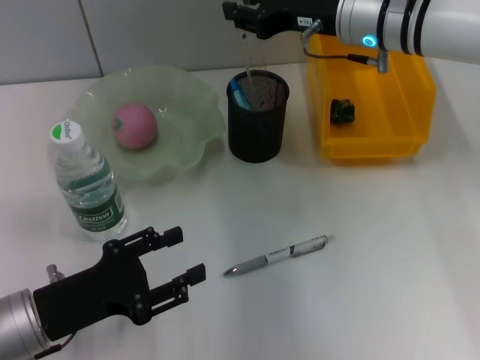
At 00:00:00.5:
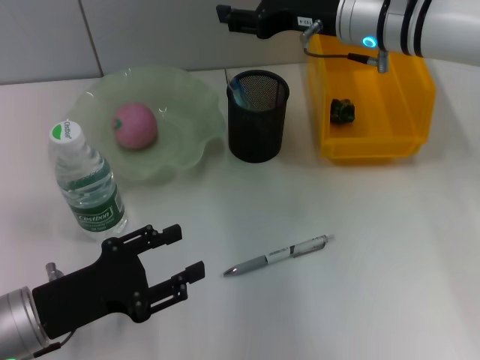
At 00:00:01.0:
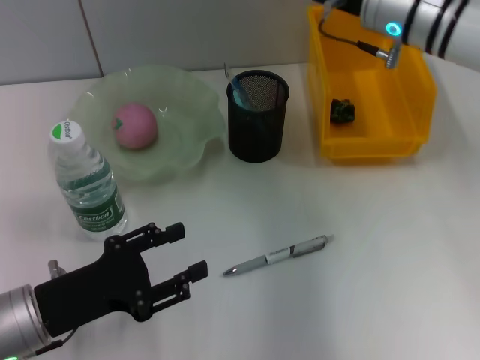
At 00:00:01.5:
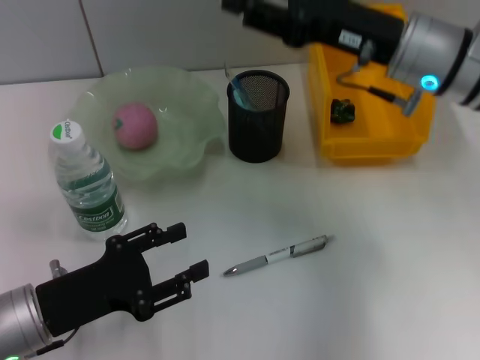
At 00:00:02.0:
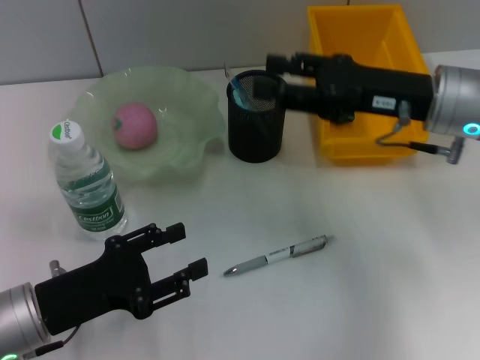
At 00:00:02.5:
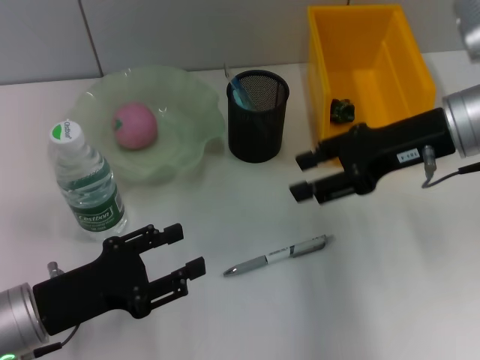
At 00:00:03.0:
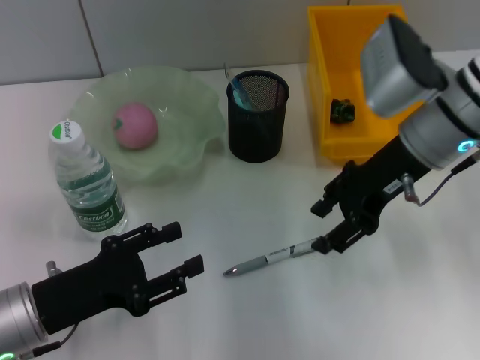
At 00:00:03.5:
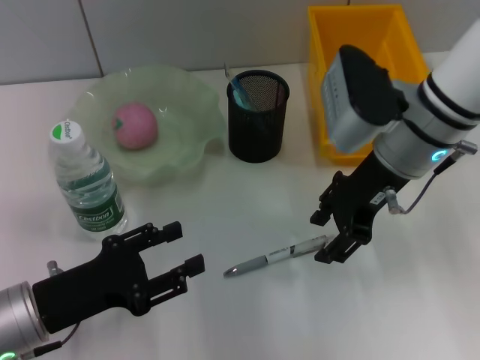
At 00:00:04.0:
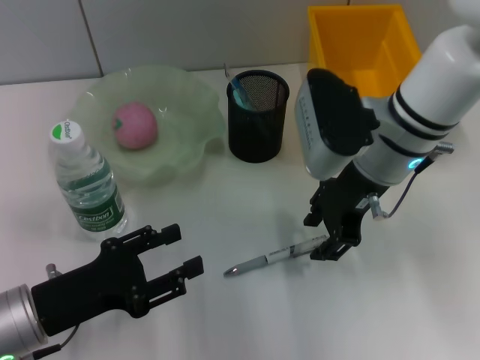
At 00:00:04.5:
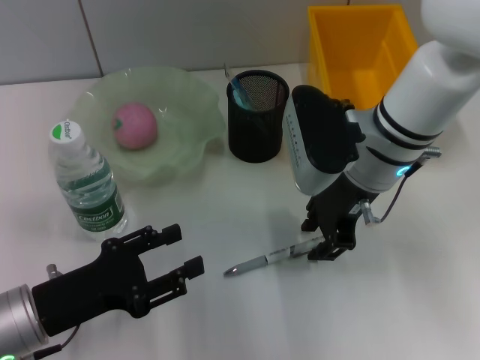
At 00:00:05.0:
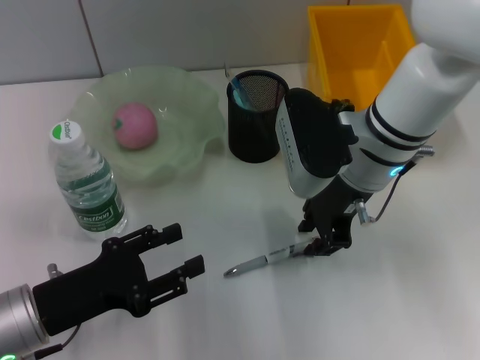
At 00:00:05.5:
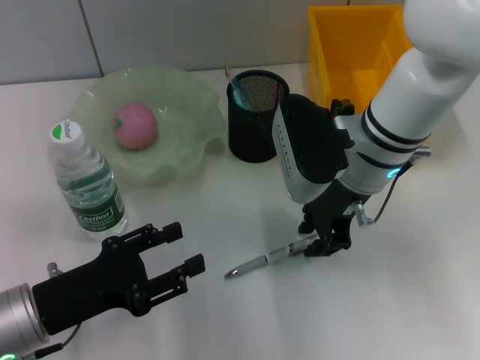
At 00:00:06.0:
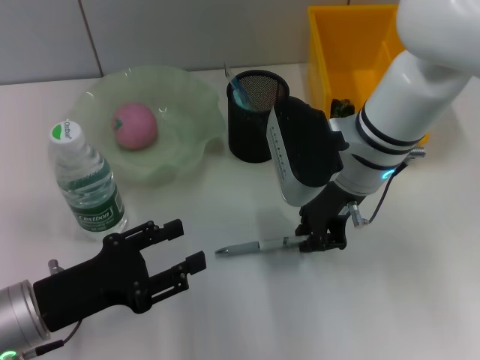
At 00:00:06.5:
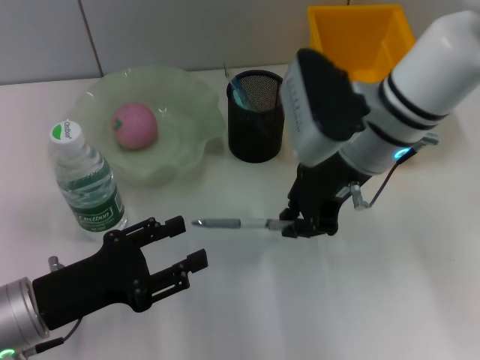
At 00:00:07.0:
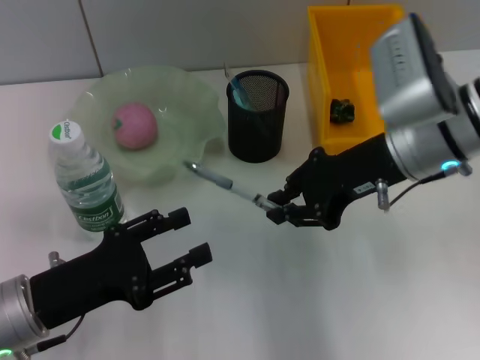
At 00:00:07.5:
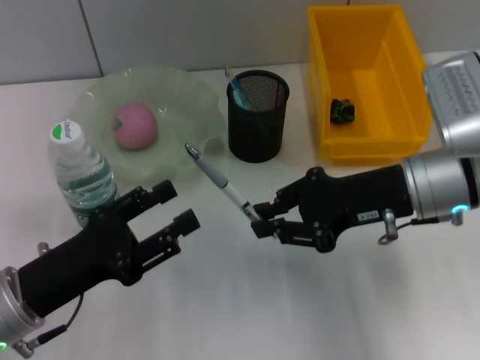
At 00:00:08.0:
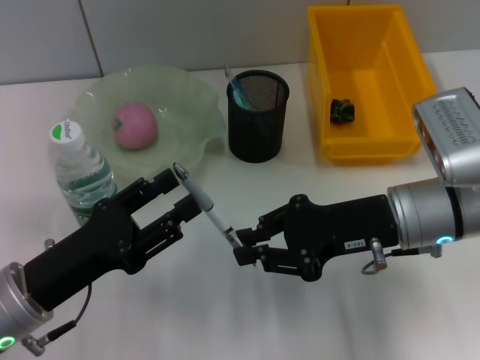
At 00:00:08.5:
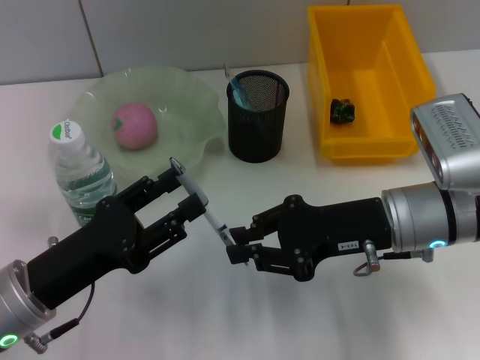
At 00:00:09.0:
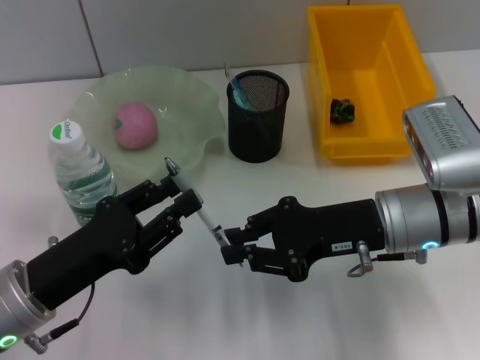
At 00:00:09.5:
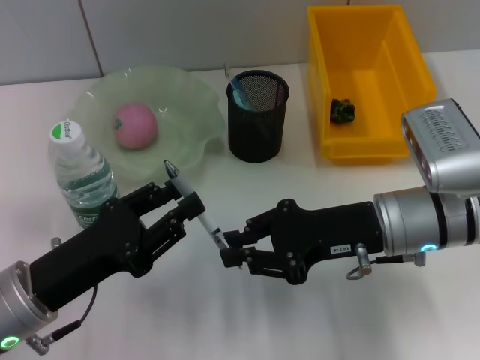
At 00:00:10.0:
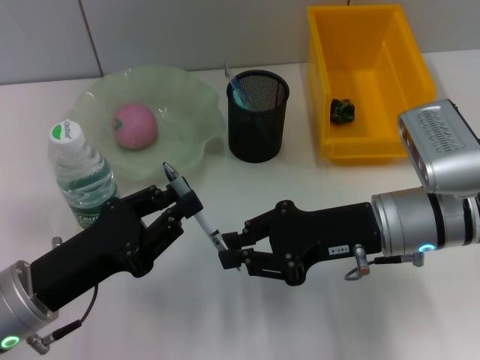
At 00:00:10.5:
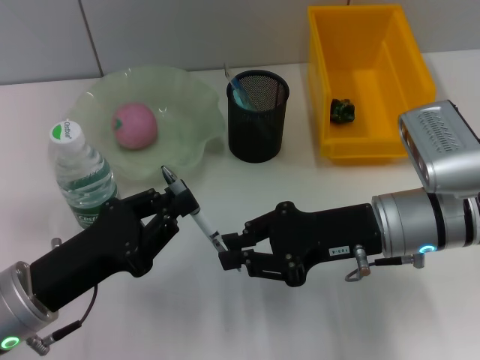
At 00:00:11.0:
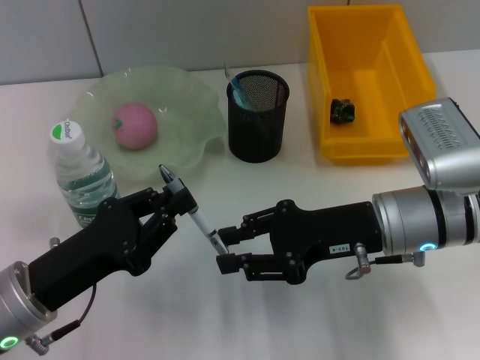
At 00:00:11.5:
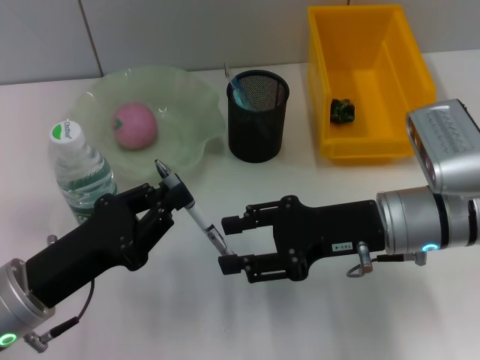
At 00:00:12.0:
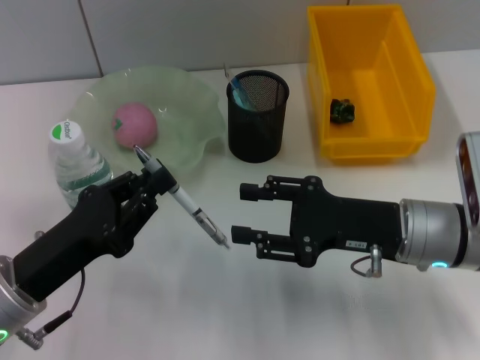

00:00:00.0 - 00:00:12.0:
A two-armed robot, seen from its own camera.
Step, 00:00:01.0 - 00:00:05.5: Grab the gray spring-action pen with the right hand.
Step, 00:00:06.0 - 00:00:11.0: Pass the gray spring-action pen from the right hand to the left hand.
00:00:00.0 - 00:00:02.0: The right gripper heads backward and to the right, covering roughly 10 cm, and opens up.
00:00:02.0 - 00:00:04.0: The right gripper travels to the left by about 10 cm.
00:00:04.0 - 00:00:06.0: The right gripper closes up.
00:00:06.0 - 00:00:08.0: The right gripper travels to the right and backward by about 10 cm.
00:00:08.0 - 00:00:10.0: The left gripper closes its fingers.
00:00:10.0 - 00:00:12.0: The right gripper opens.

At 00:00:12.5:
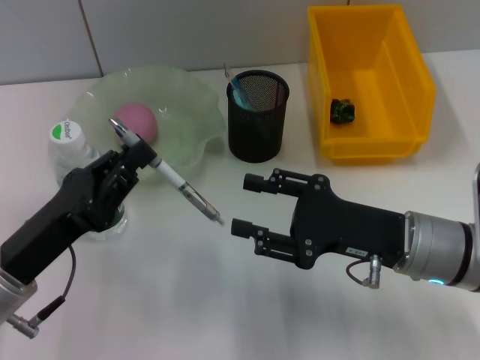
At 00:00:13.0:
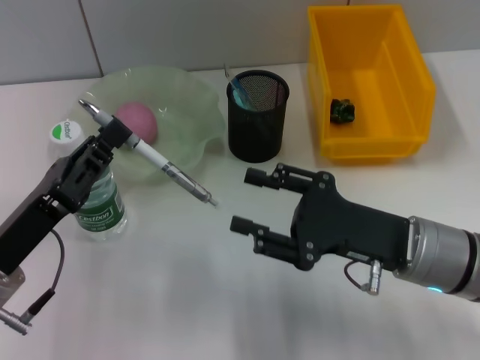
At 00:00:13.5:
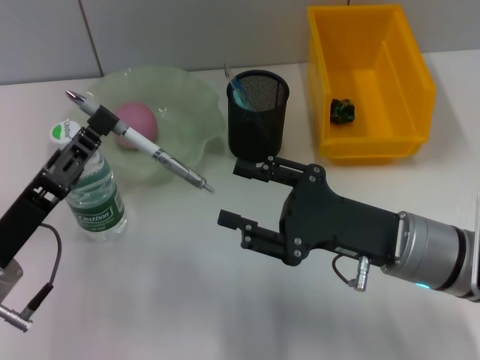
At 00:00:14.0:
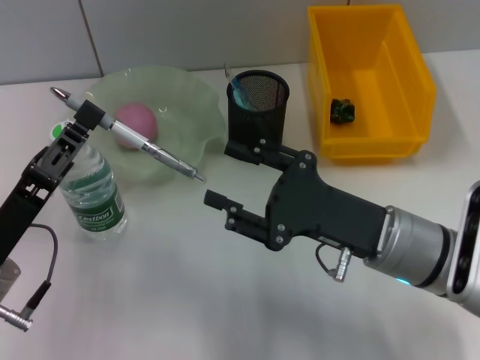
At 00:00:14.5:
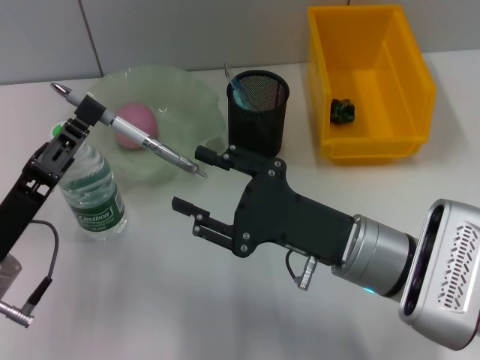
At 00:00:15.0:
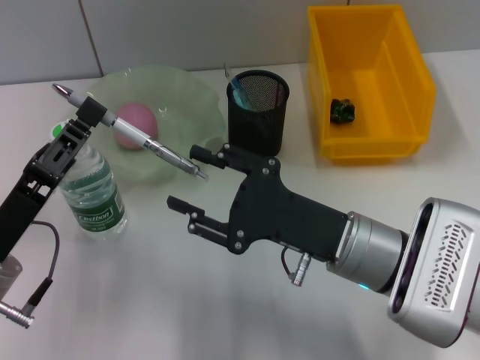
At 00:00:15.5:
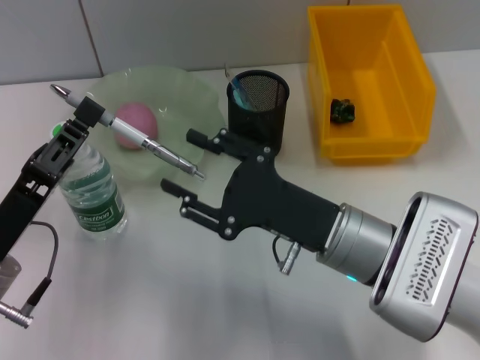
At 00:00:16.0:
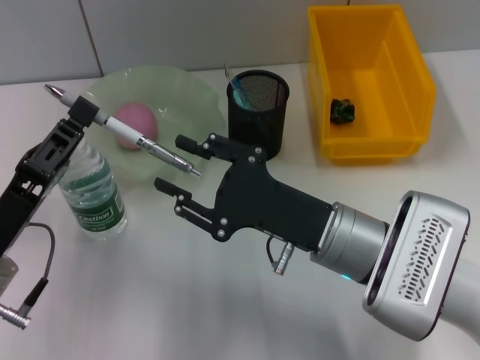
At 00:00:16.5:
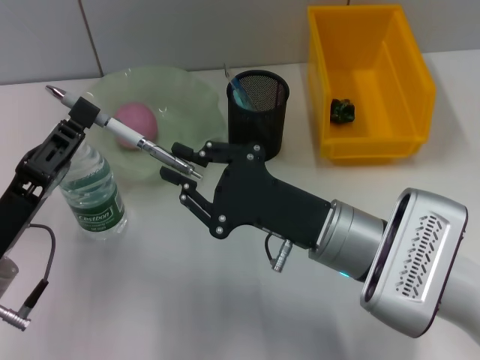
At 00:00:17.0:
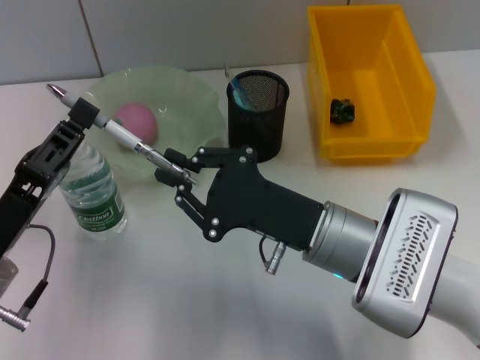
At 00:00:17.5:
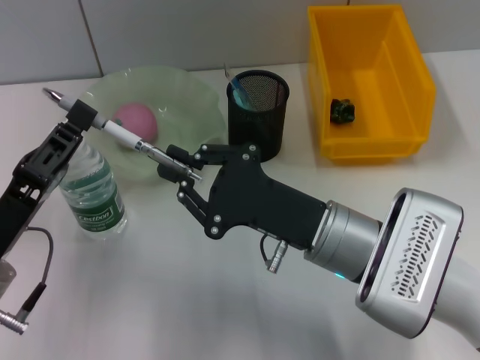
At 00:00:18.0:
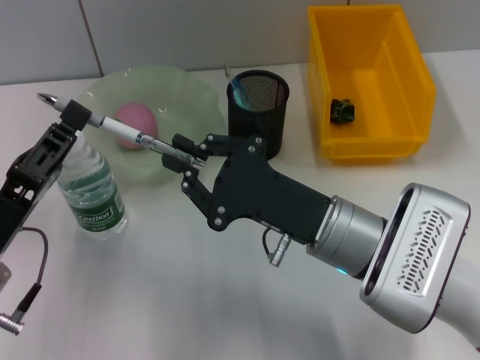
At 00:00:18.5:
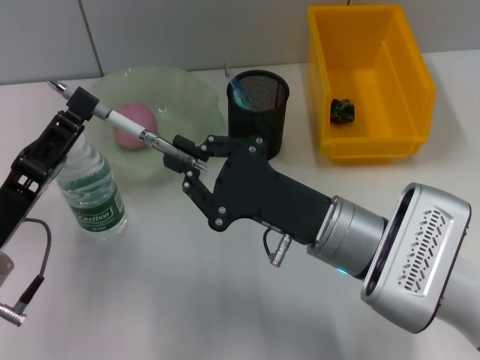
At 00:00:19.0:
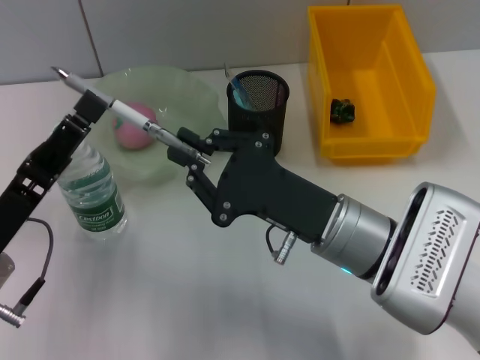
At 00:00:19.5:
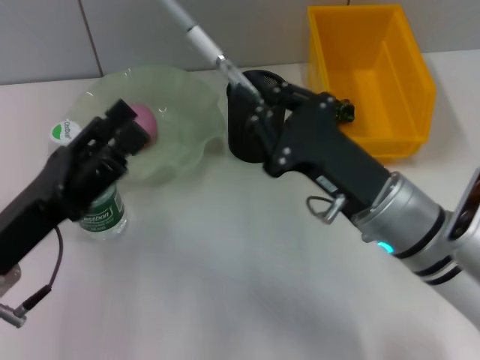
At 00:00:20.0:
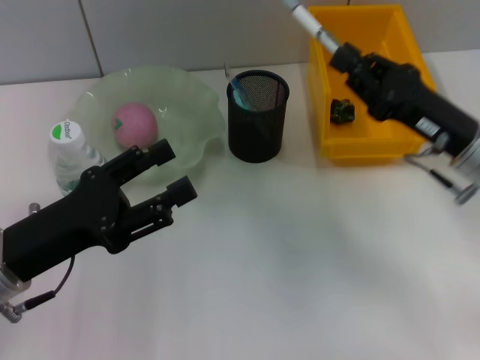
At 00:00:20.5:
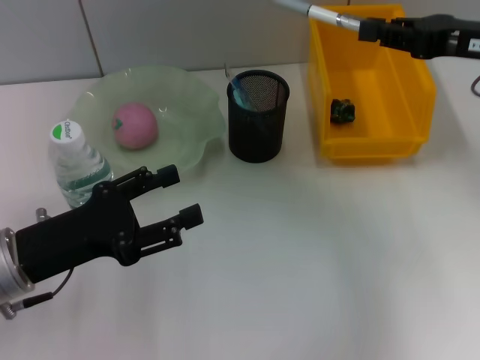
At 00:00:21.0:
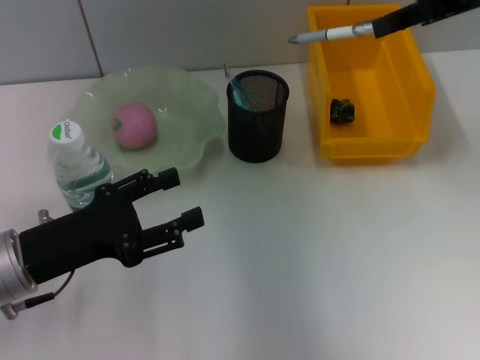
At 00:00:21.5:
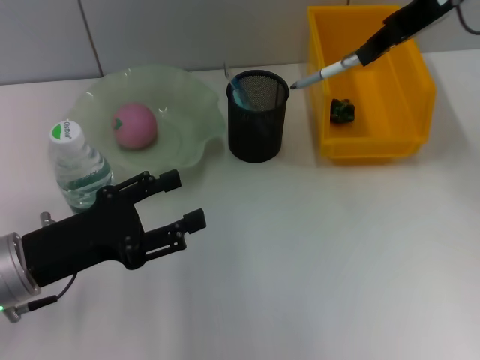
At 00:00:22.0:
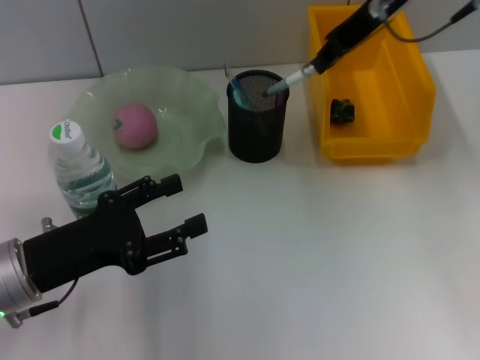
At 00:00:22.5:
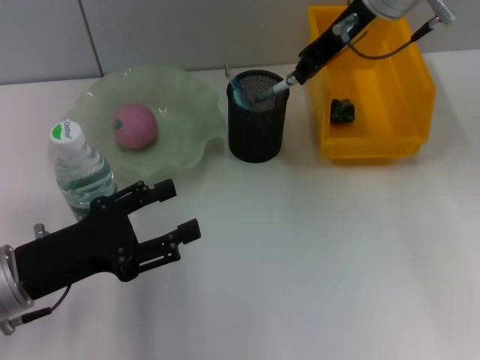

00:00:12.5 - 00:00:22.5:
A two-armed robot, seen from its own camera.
Step, 00:00:12.5 - 00:00:18.5: Pass the gray spring-action pen from the left hand to the right hand.
00:00:12.5 - 00:00:14.5: The right gripper is displaced to the left by approximately 5 cm.
00:00:14.5 - 00:00:16.5: The right gripper closes up.
00:00:16.5 - 00:00:18.5: Neither gripper changes place.
00:00:18.5 - 00:00:20.5: The left gripper opens. Meanwhile the right gripper moves to the right, upward and forward, about 25 cm.
00:00:20.5 - 00:00:22.5: The right gripper is displaced to the left and forward by approximately 15 cm.

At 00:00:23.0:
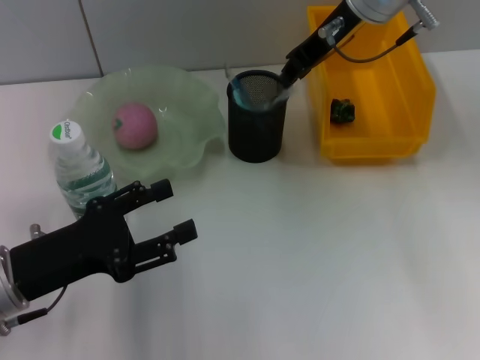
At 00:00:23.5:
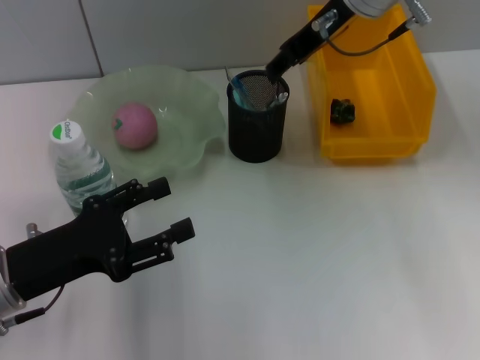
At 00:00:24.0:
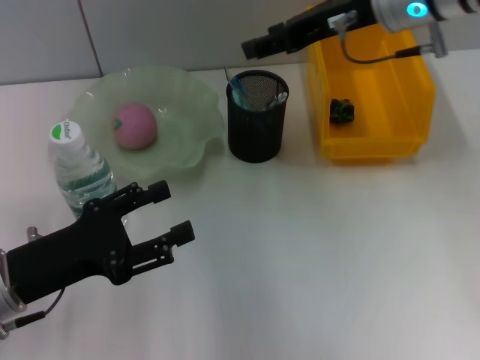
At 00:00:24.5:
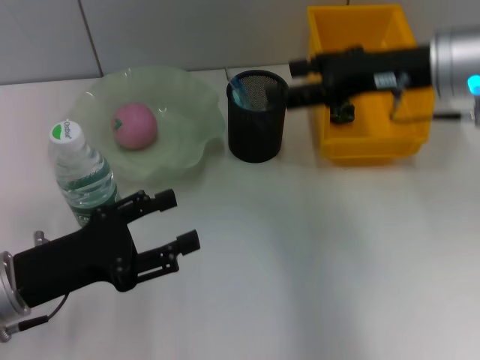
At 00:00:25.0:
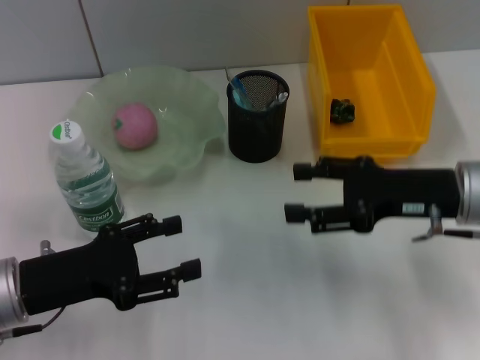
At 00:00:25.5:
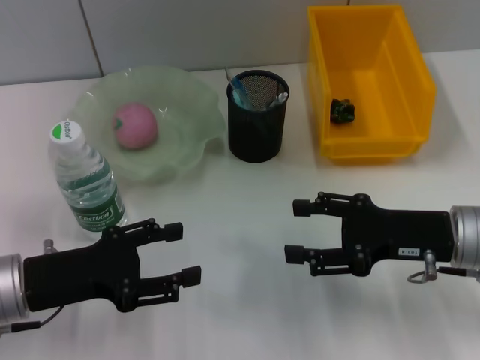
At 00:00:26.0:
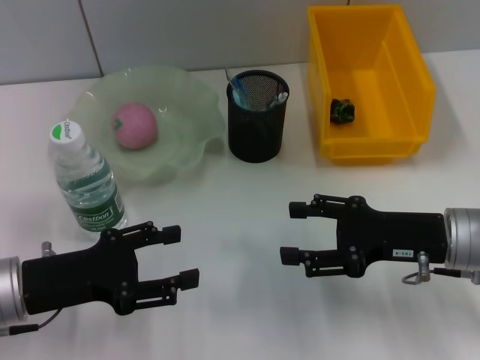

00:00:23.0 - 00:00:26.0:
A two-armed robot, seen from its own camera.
00:00:23.0 - 00:00:24.5: The right gripper shifts approximately 15 cm backward, to the right and downward, and opens its fingers.
00:00:24.5 - 00:00:26.0: The right gripper is displaced downward and backward by roughly 15 cm.
